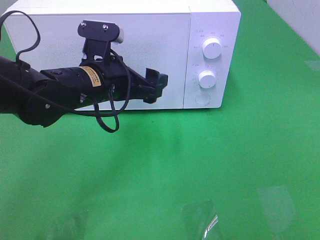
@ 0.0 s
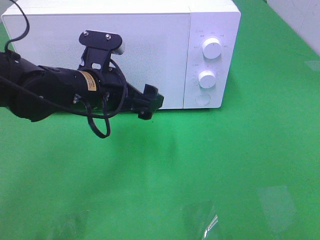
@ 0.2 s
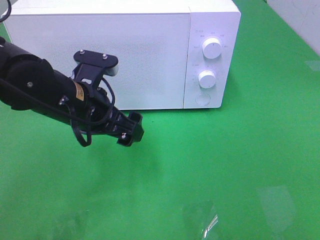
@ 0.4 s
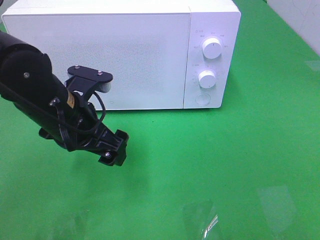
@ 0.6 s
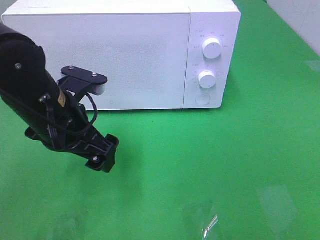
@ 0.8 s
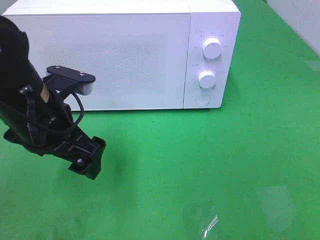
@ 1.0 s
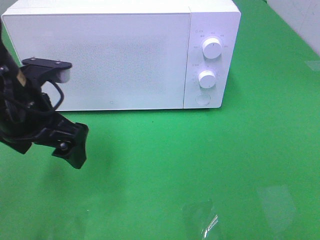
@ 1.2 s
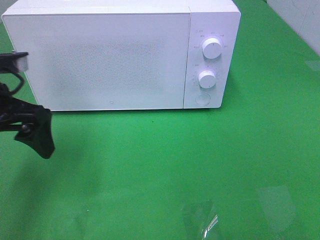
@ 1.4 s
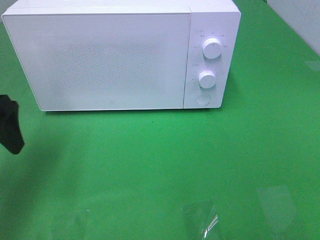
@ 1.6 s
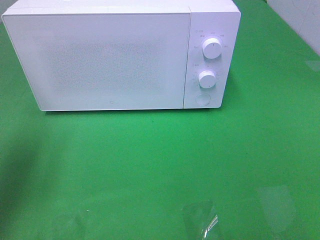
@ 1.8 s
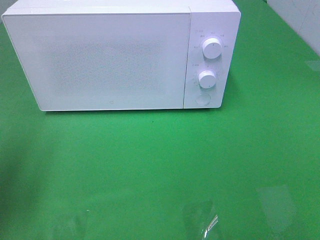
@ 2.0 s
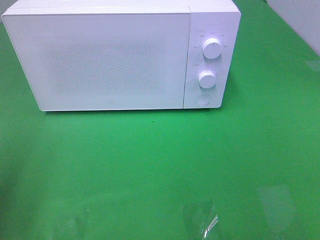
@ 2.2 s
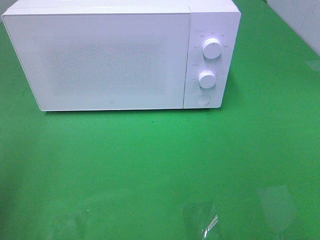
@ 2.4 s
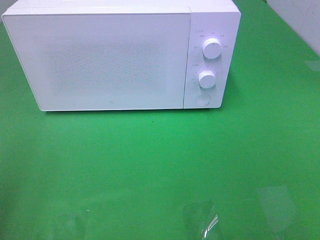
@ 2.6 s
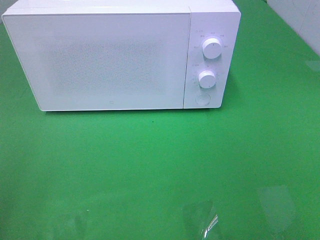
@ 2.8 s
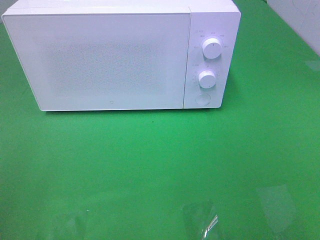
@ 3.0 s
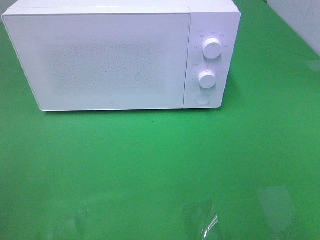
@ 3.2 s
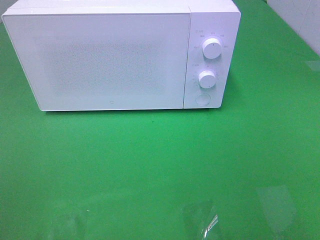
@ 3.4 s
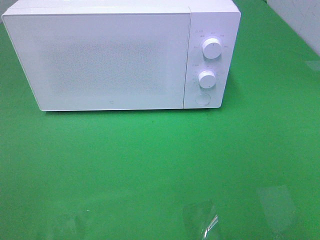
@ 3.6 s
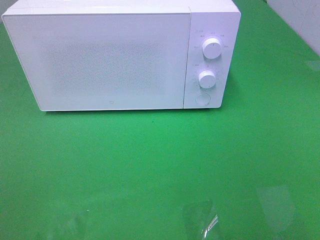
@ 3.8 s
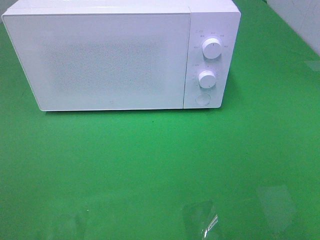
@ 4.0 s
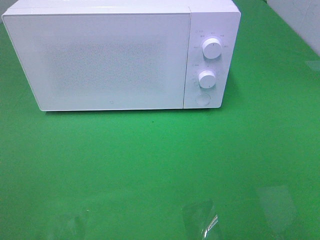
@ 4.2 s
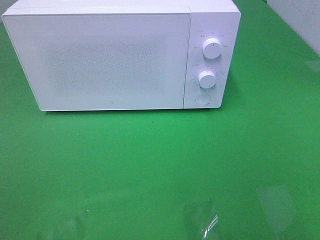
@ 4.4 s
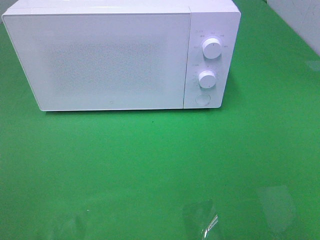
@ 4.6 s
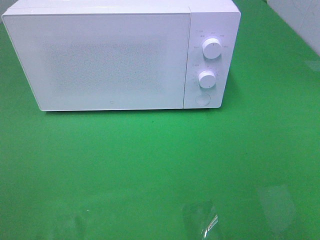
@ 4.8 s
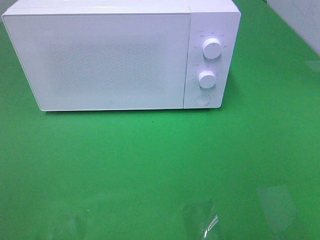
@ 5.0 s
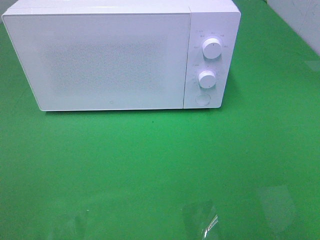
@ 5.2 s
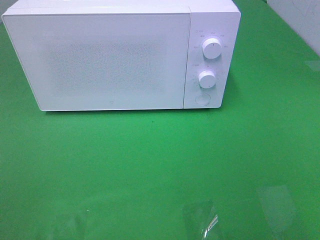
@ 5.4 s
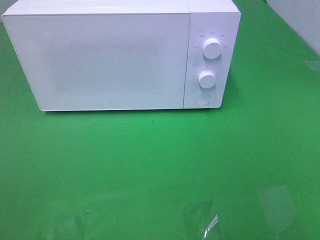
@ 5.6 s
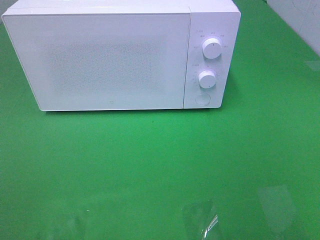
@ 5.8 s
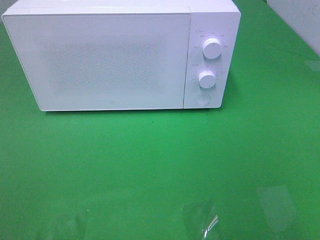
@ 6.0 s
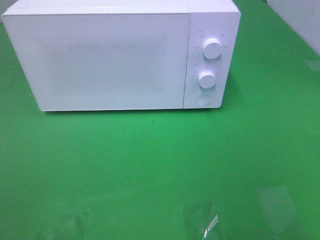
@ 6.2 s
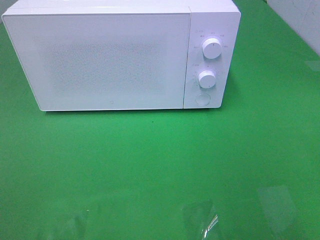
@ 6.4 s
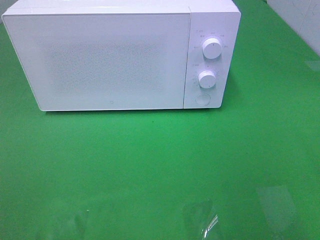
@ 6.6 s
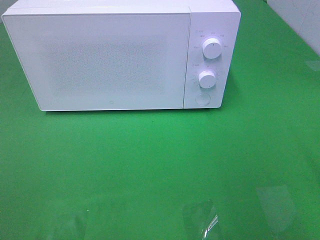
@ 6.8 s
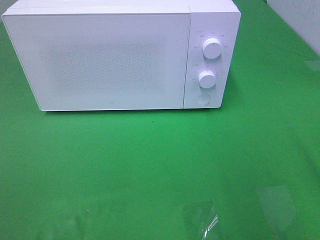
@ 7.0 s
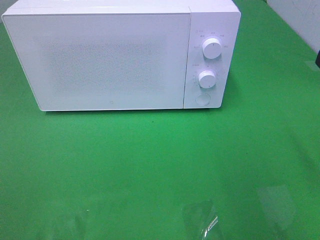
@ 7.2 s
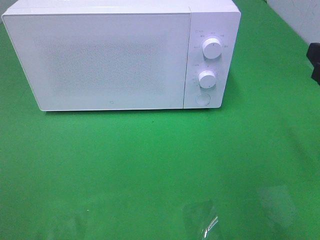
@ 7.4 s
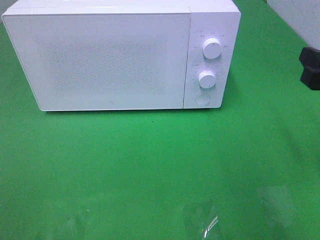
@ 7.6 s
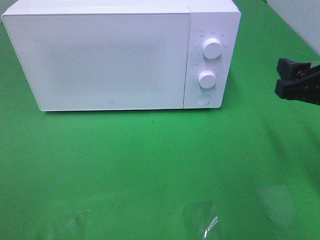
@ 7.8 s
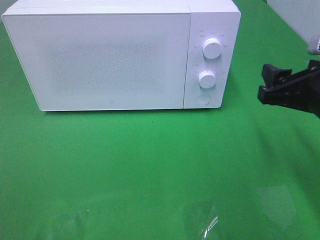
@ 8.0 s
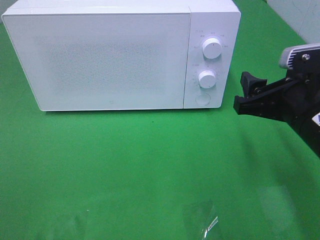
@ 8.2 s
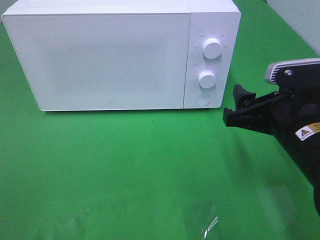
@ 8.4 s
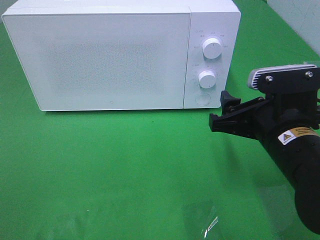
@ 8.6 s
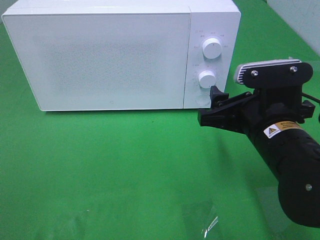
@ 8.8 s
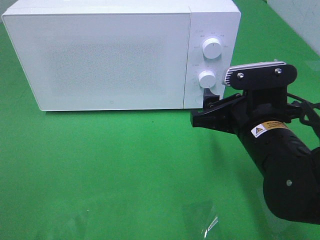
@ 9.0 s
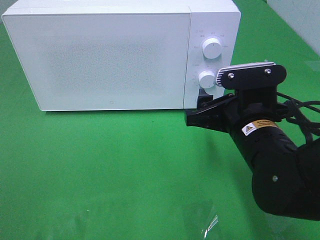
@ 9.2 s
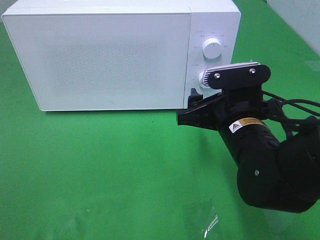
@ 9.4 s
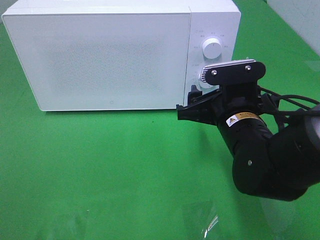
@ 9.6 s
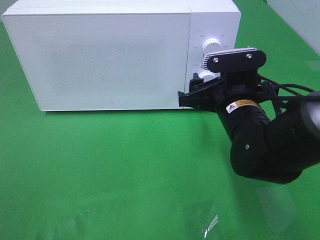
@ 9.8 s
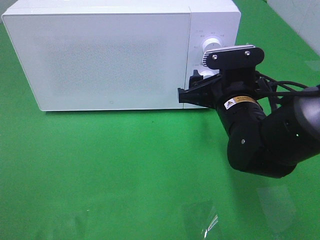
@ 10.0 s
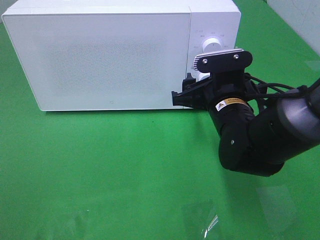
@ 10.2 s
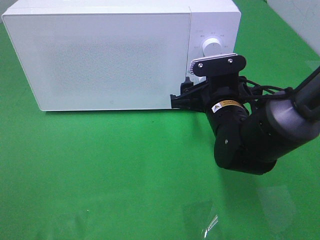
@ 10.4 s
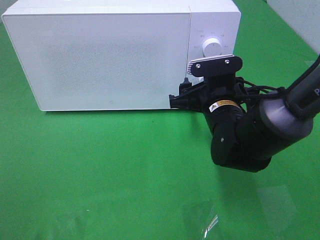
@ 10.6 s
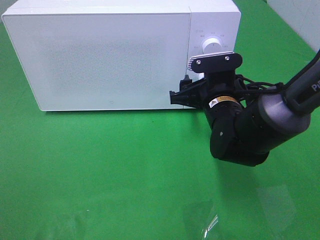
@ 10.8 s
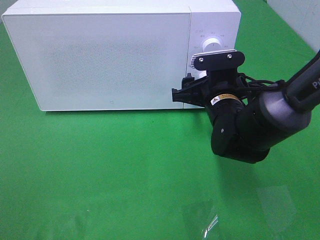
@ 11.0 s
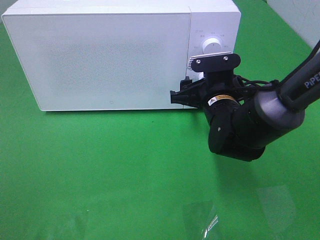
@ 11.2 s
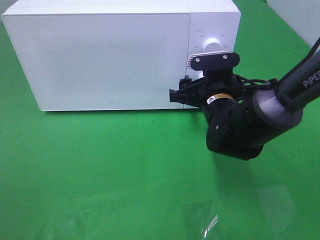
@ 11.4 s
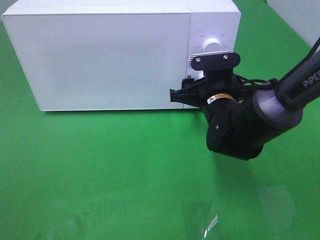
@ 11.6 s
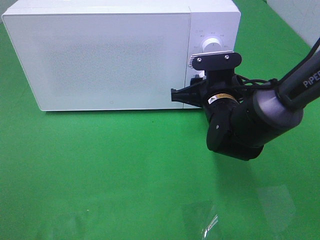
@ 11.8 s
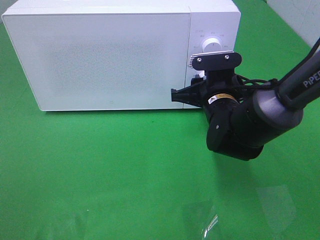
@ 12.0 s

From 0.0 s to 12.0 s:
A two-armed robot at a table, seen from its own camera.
Task of the whole recording: Heat the burger.
From 0.0 s to 1.6 s: The left gripper is displaced to the left by approximately 20 cm.
From 1.6 s to 3.0 s: The left gripper travels backward by some 20 cm.
From 6.0 s to 7.6 s: The right gripper moves forward and downward, about 20 cm.
From 7.6 s to 9.0 s: The right gripper is displaced to the left and downward by about 15 cm.
From 9.0 s to 10.4 s: The right gripper goes roughly 10 cm forward.
From 10.4 s to 12.0 s: The right gripper closes up.

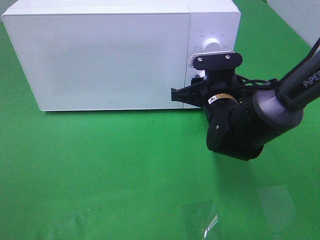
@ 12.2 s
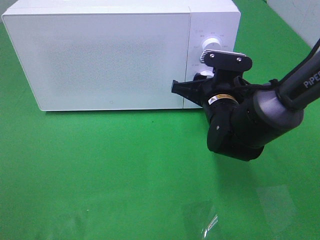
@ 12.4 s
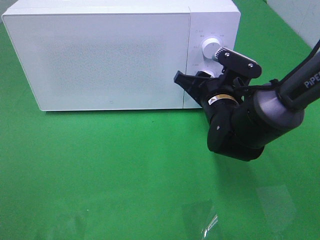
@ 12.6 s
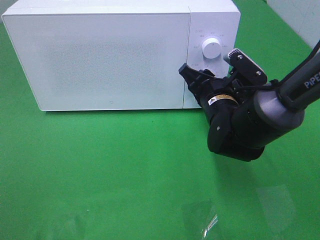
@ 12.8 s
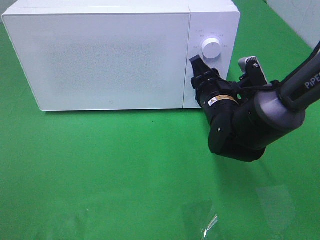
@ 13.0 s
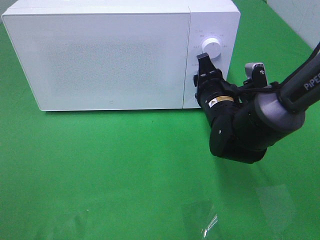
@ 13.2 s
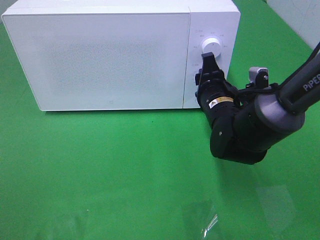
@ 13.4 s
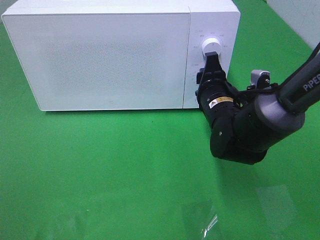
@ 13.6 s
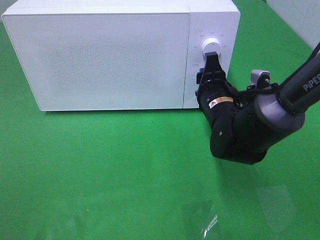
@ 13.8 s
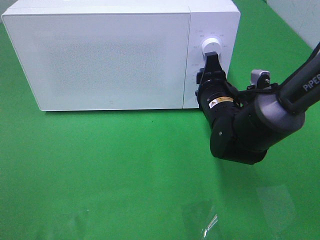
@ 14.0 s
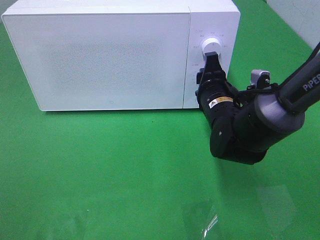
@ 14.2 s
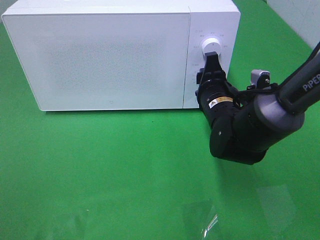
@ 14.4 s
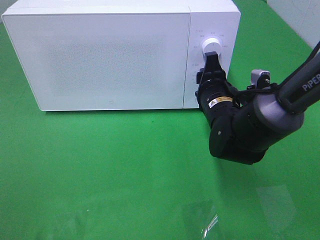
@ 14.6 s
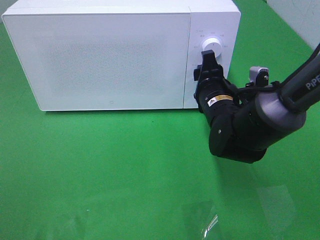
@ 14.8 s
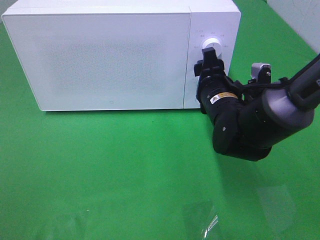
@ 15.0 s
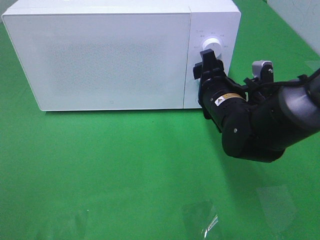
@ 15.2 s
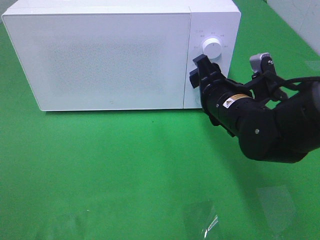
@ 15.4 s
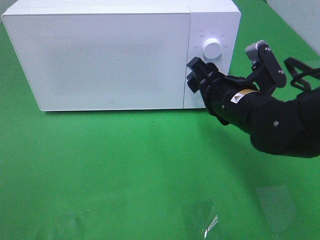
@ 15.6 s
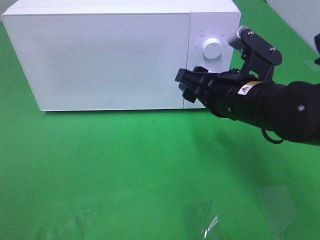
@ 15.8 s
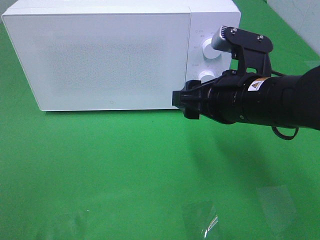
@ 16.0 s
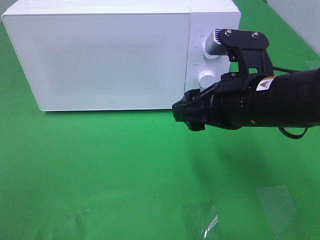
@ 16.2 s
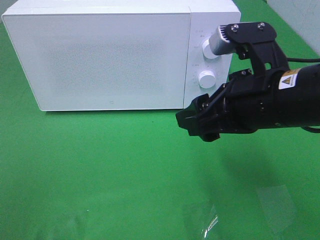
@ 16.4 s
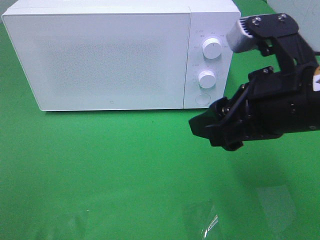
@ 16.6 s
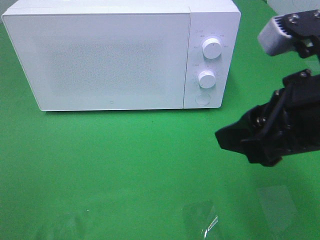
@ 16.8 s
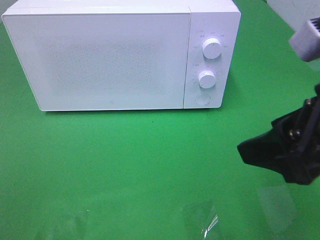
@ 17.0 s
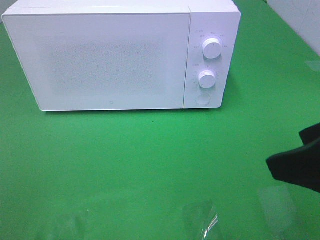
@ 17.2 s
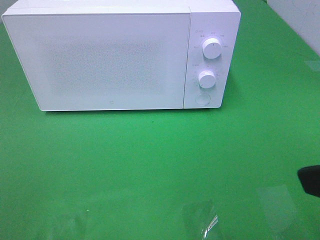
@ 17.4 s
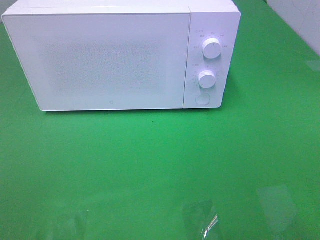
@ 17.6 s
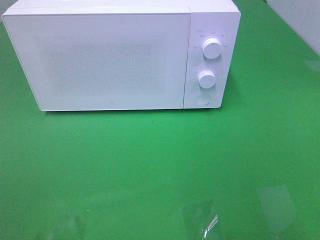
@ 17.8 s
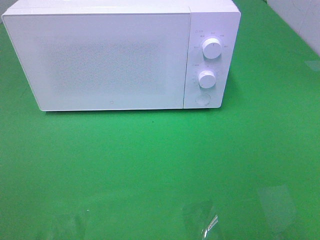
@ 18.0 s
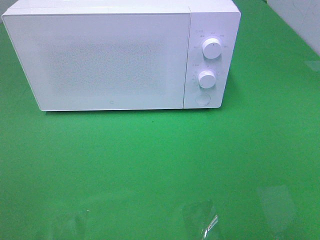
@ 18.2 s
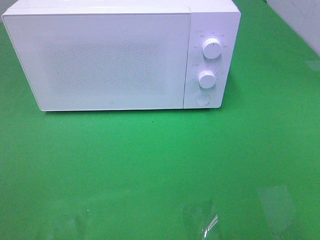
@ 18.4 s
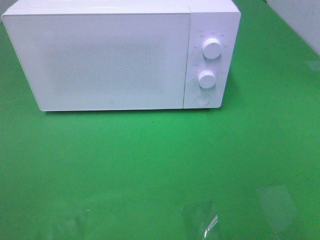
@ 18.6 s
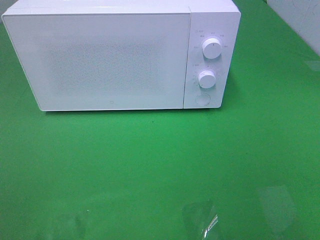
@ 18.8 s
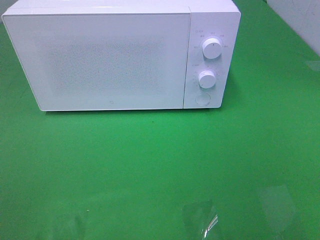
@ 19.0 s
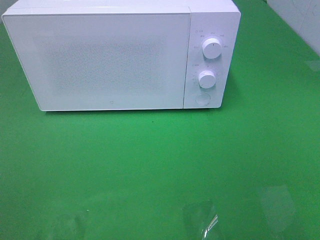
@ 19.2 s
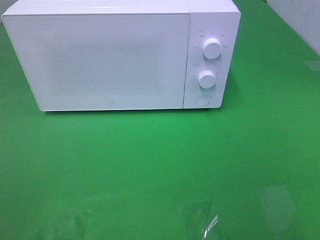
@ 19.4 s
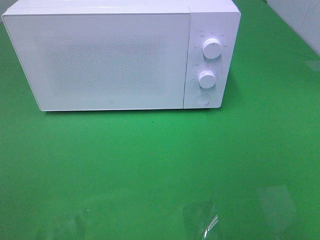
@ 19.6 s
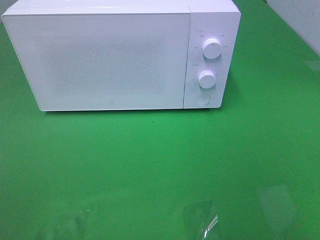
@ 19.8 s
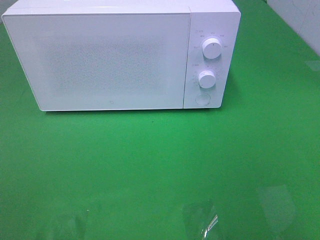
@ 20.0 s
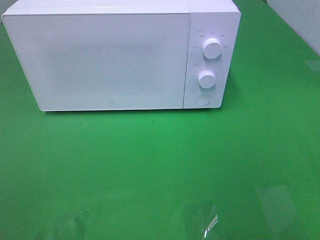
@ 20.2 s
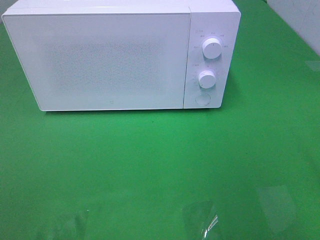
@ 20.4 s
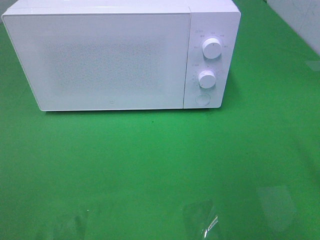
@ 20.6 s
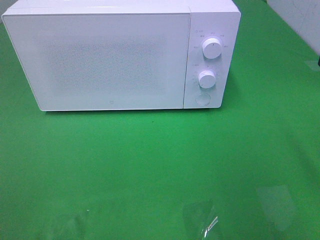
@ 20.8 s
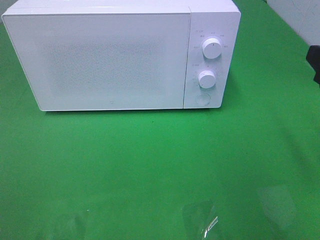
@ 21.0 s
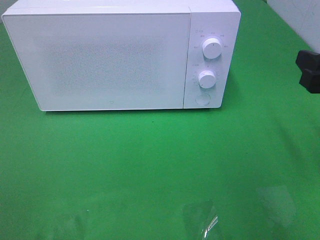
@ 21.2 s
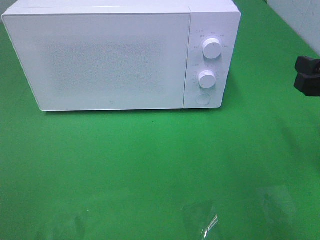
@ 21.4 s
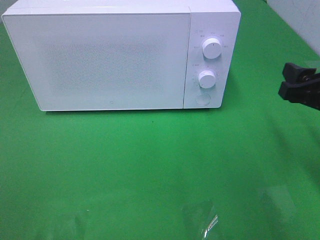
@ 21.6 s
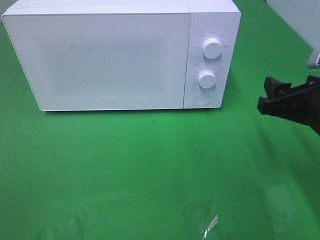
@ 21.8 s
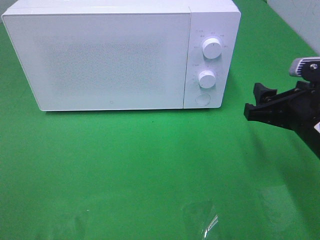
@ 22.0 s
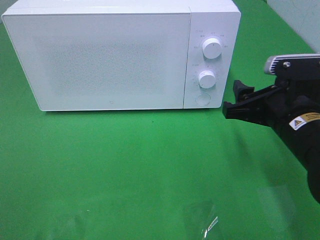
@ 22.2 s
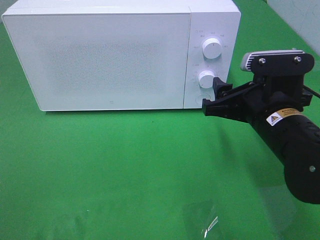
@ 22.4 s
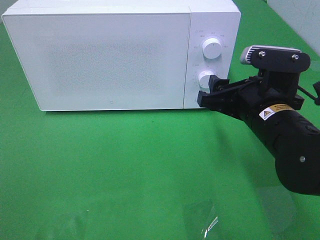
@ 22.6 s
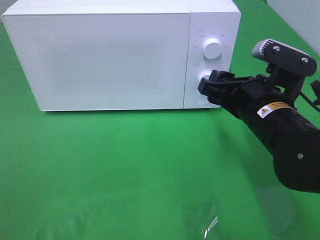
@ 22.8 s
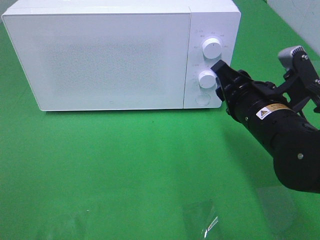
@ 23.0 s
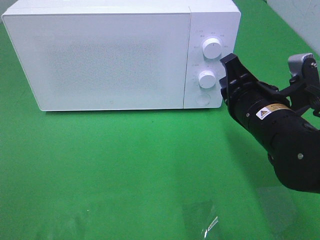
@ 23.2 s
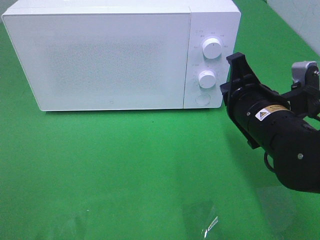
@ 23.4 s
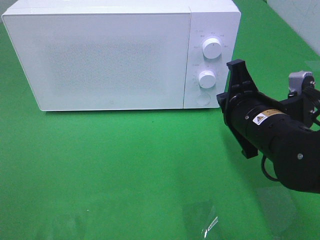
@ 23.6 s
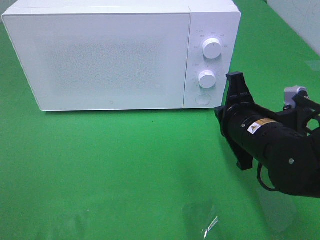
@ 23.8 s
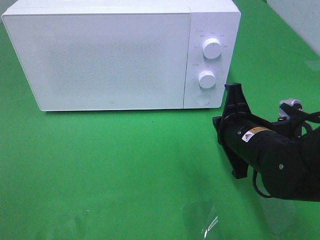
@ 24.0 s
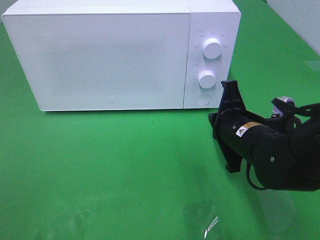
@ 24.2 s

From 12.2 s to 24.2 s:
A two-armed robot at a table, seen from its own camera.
Task of the whole recording: Heat the burger.
Step, from 12.2 s to 15.0 s: Right hand: twist timer button.
From 13.8 s to 15.2 s: The grippers make only small movements.
From 15.2 s to 16.6 s: The right gripper heads backward and upward, covering about 20 cm.
From 16.6 s to 18.2 s: The right gripper moves backward and to the right, about 20 cm.
From 19.8 s to 21.2 s: The right gripper heads forward and downward, covering about 15 cm.
From 21.2 s to 22.6 s: The right gripper heads to the left and downward, covering about 15 cm.
From 22.6 s to 24.2 s: The right gripper is displaced downward by roughly 5 cm, and closes.
